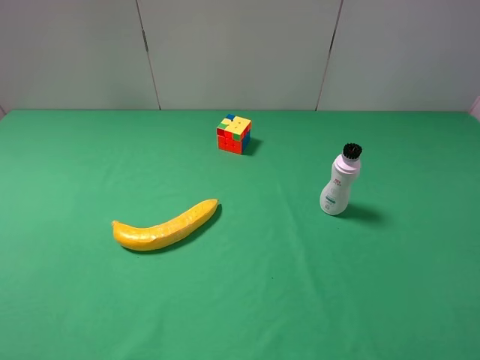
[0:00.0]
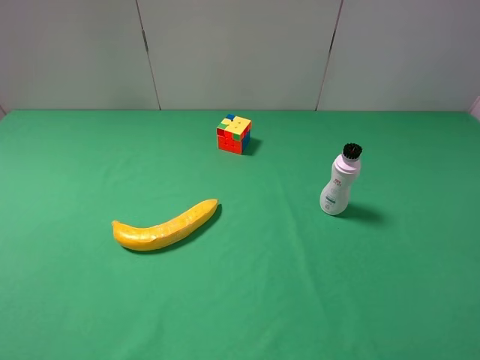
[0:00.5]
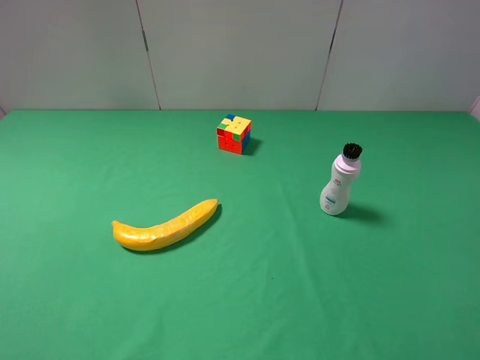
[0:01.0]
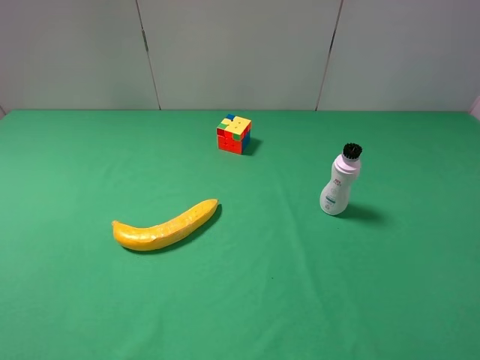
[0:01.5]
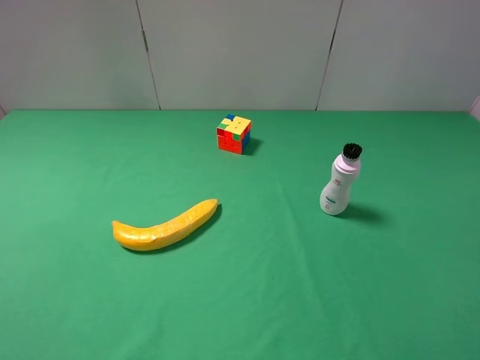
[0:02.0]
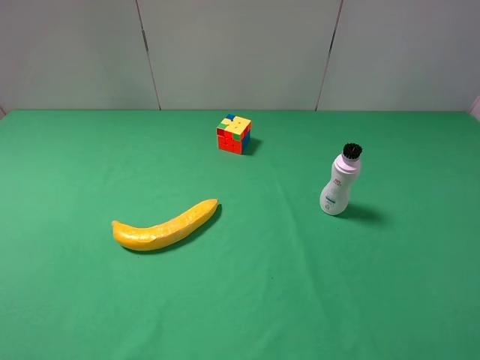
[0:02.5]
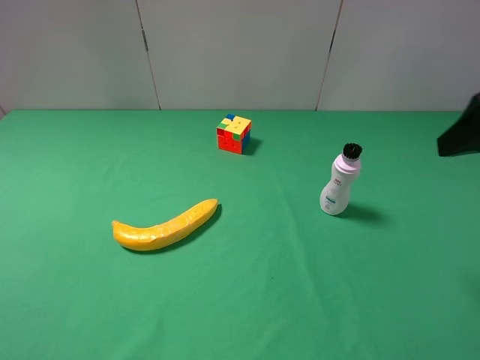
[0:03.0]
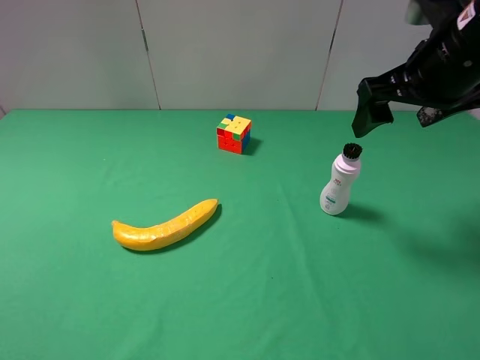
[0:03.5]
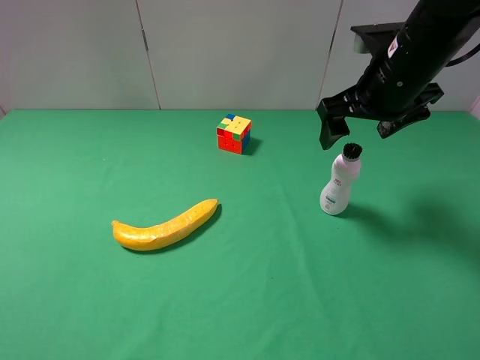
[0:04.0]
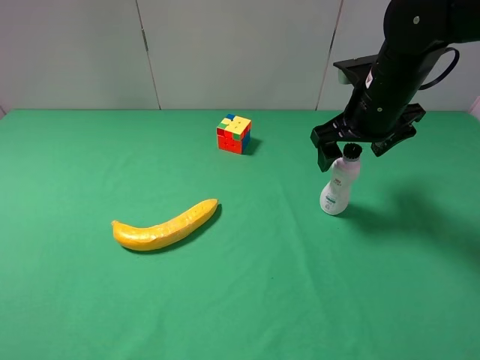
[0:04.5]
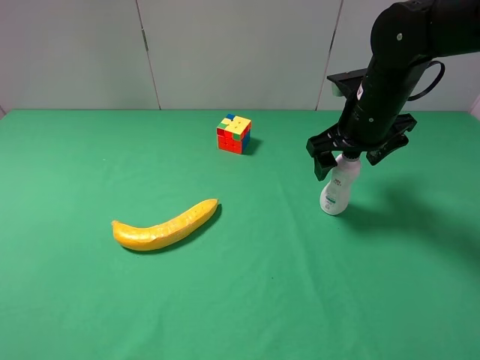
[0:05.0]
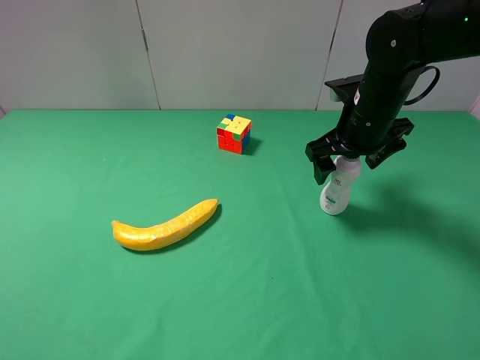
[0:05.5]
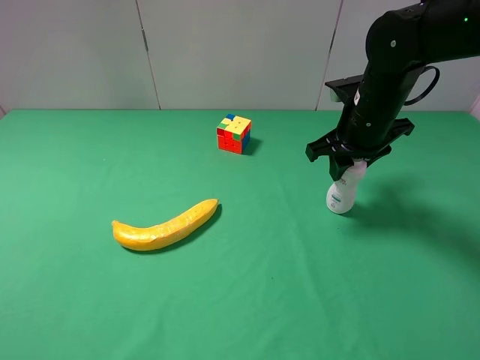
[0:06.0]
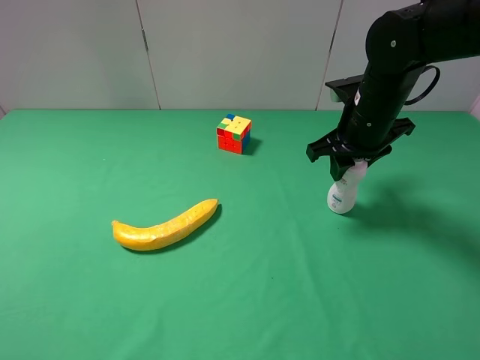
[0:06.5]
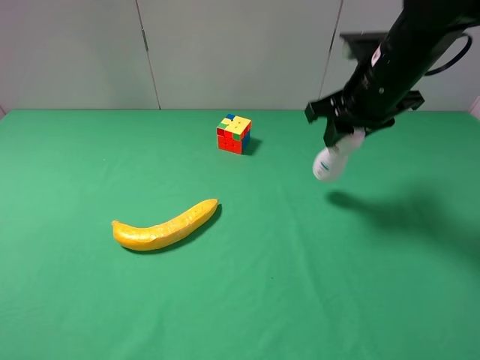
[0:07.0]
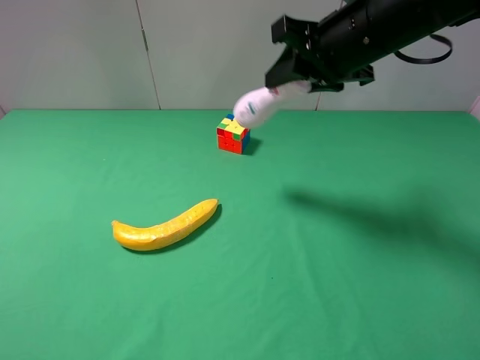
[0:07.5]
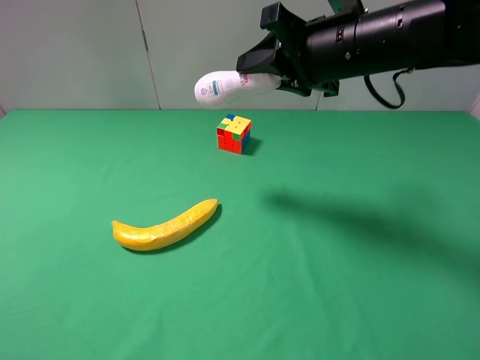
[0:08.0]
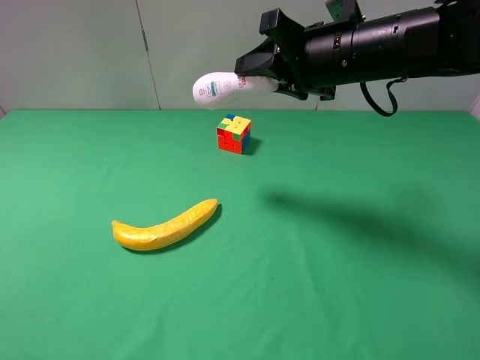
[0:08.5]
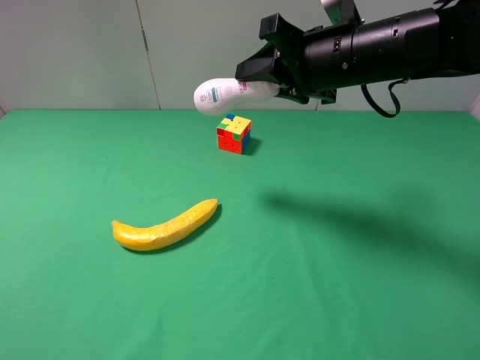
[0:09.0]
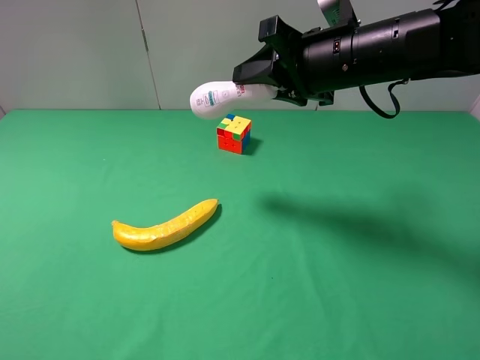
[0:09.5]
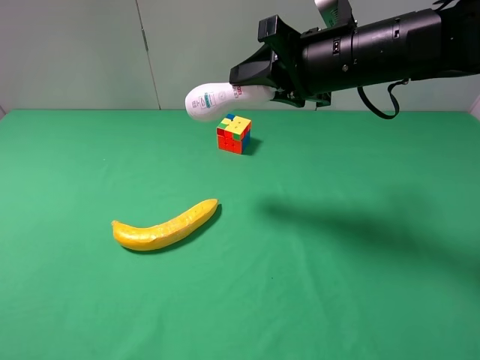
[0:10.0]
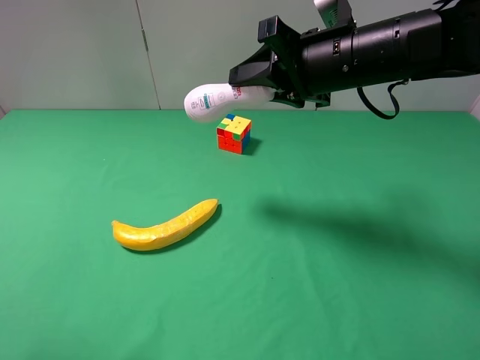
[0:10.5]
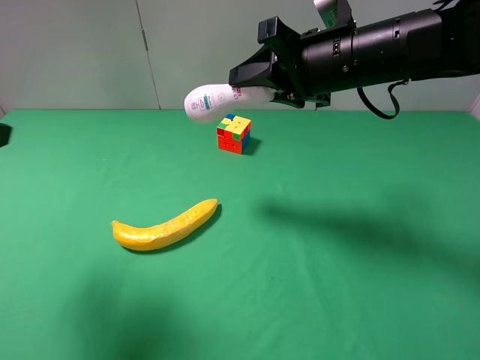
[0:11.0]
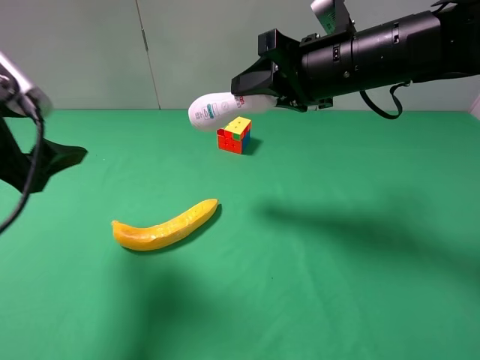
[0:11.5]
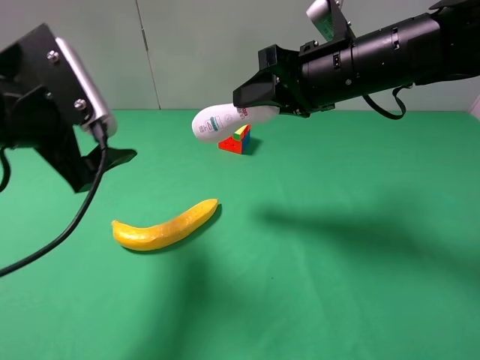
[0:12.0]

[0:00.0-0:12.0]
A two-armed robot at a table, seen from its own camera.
Task of the whole recording: use the right gripper to pick up the item and transfer it from the right gripper to the left gripper.
0:00.0 to 0:02.0: Neither gripper changes place.
0:02.0 to 0:04.0: The right gripper travels forward by roughly 30 cm.
0:04.0 to 0:06.0: The right gripper moves downward, some 5 cm, and closes up.
0:06.0 to 0:08.0: The right gripper shifts approximately 10 cm upward.
0:08.0 to 0:10.0: There are only small adjustments of the grippers.
0:10.0 to 0:12.0: The left gripper travels forward and to the right by some 25 cm.

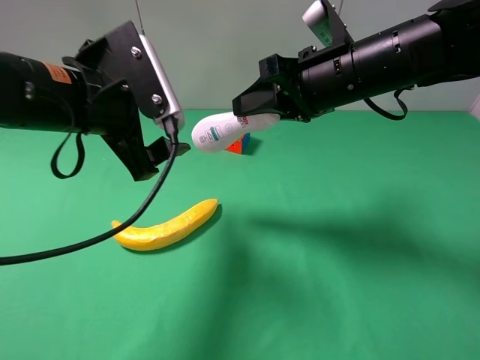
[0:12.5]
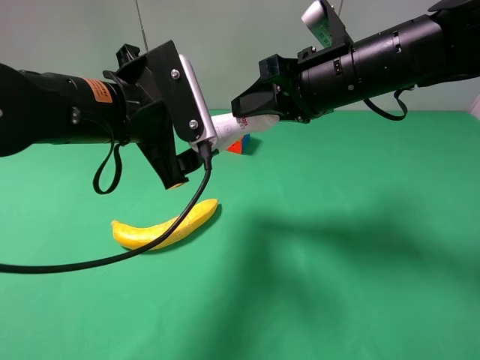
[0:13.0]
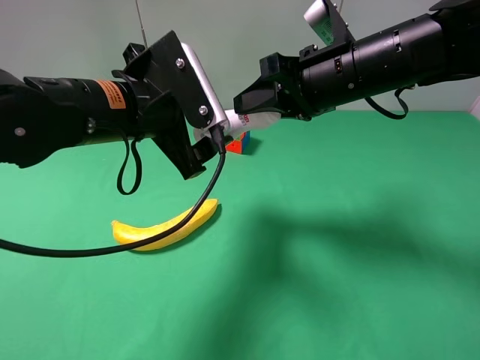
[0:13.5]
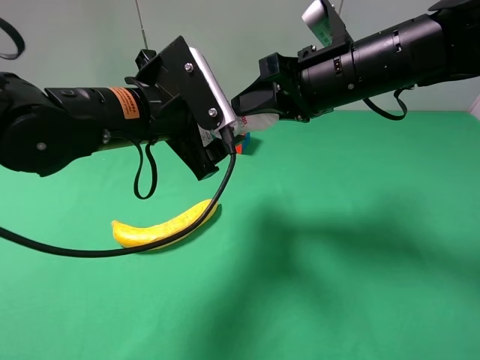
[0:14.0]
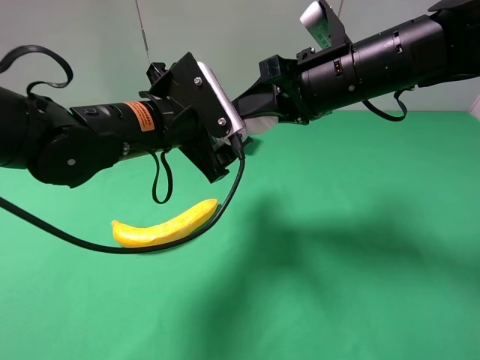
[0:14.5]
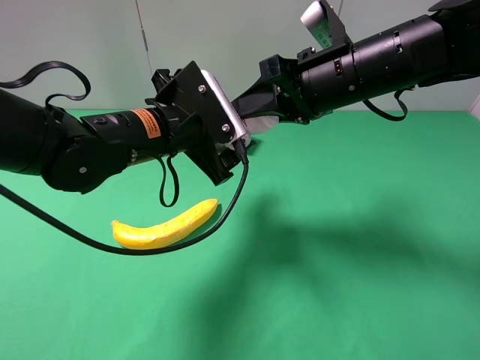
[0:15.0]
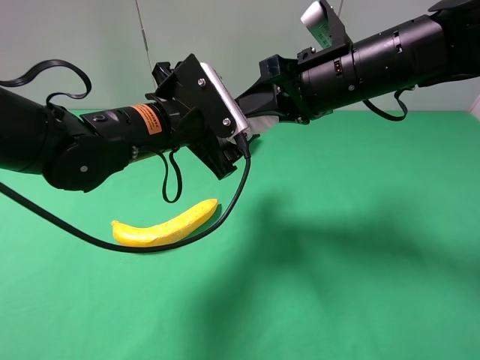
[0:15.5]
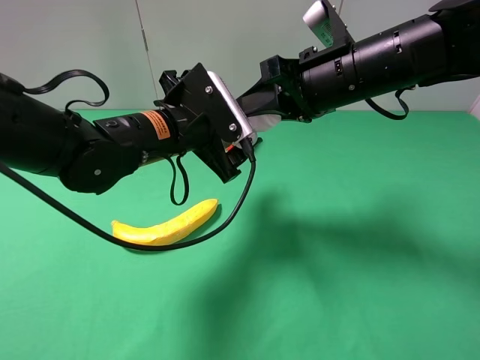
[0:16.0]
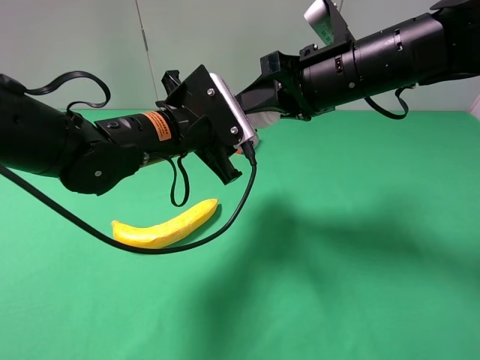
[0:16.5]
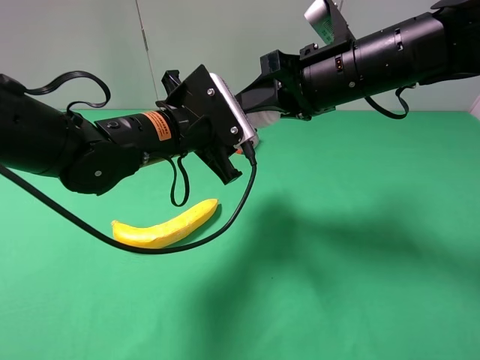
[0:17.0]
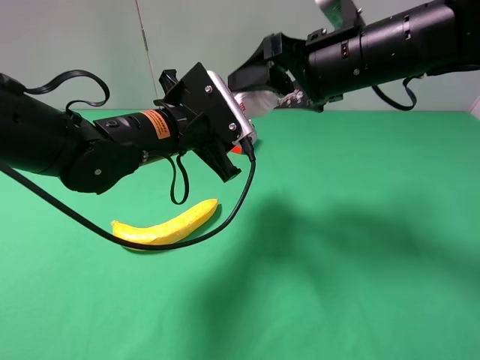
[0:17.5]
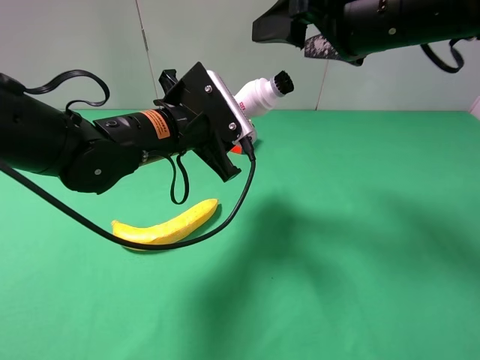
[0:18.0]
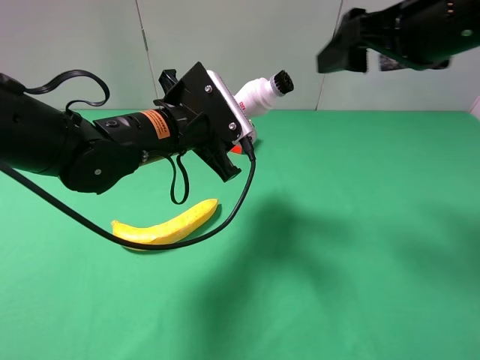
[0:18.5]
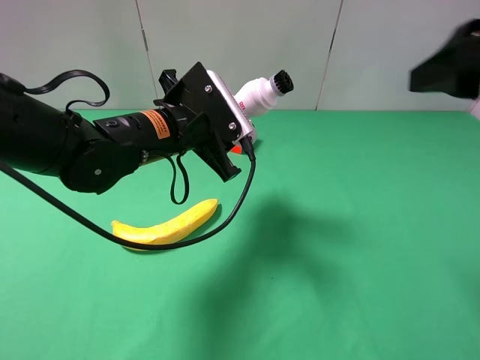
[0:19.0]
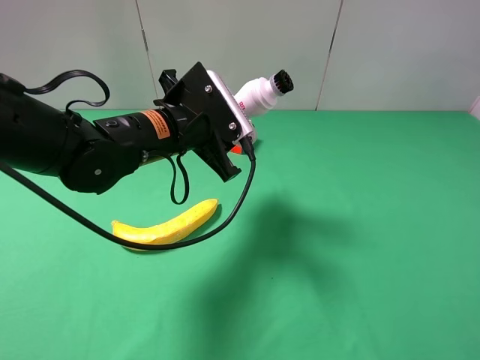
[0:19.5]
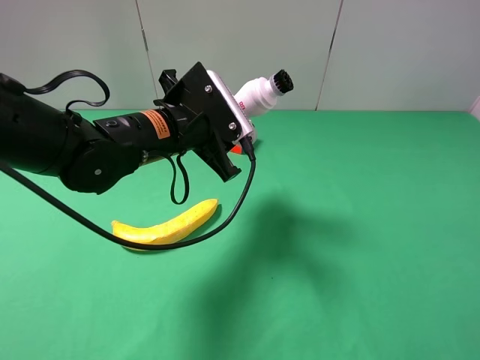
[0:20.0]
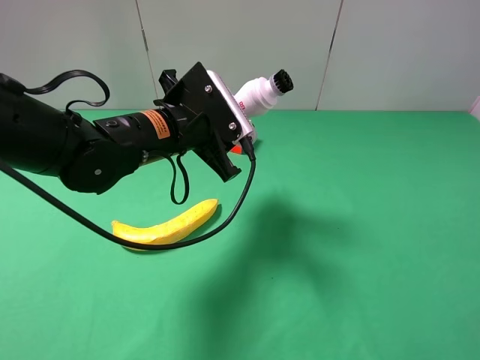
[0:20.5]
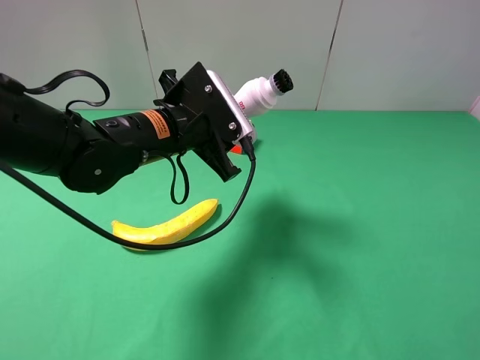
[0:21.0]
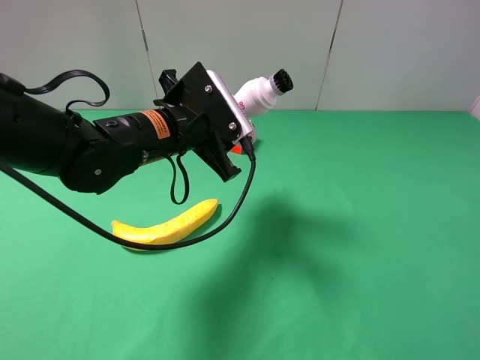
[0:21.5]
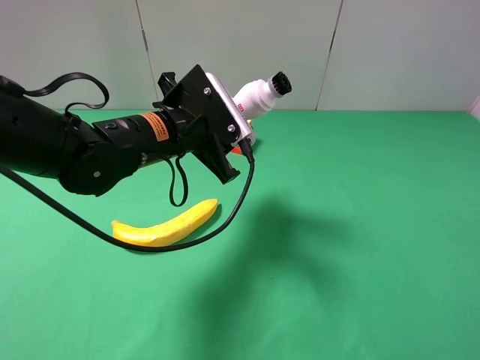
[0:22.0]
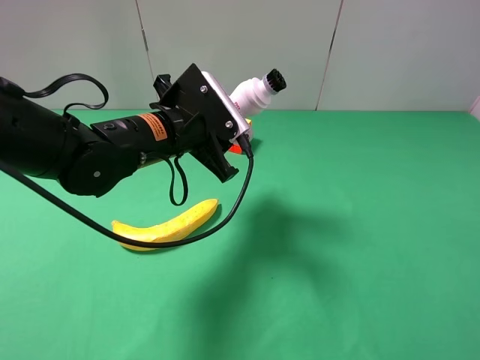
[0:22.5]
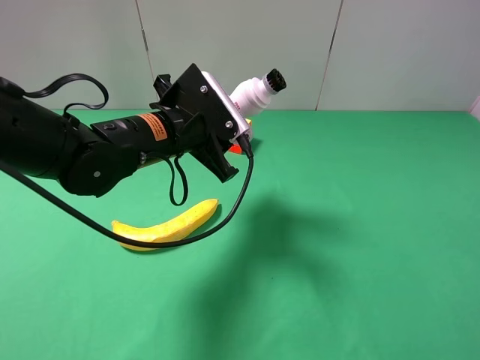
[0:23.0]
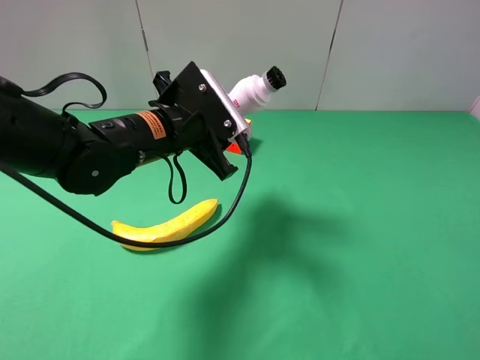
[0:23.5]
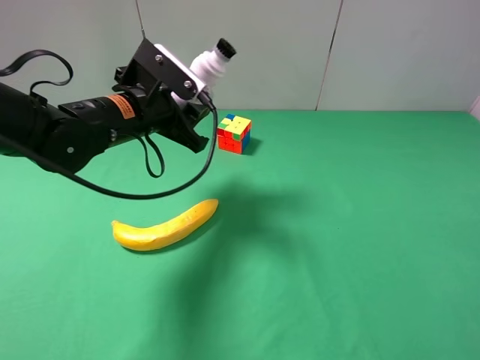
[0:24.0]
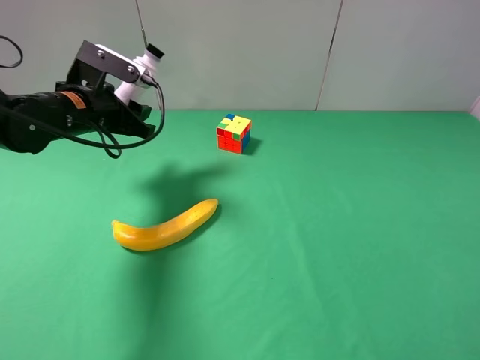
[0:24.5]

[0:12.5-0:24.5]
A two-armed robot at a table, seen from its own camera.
Task of the whole recording: use the right gripper to pick up the item and transfer it from the right gripper to the left gripper.
Step, 0:12.5 to 0:17.5: Pass the shampoo to the left gripper.
0:12.5 to 0:14.5: The left gripper travels to the right by about 5 cm.
0:14.5 to 0:16.5: The left gripper closes up.
0:16.5 to 0:18.5: The right gripper shifts some 10 cm upward and to the right, and opens its fingers.
0:18.5 to 0:20.5: The right gripper travels backward and to the right by approximately 25 cm.
0:22.5 to 0:24.5: The left gripper is displaced to the left and forward by some 15 cm.

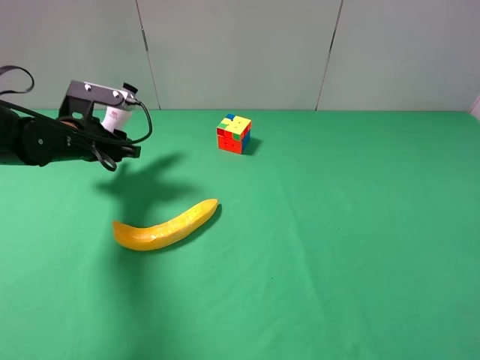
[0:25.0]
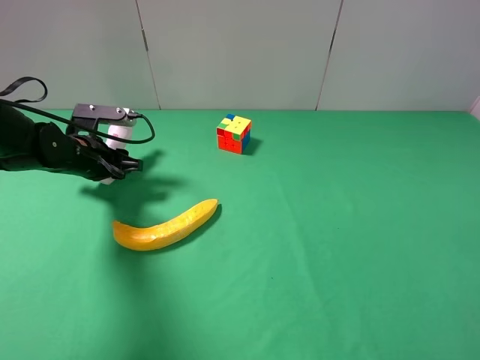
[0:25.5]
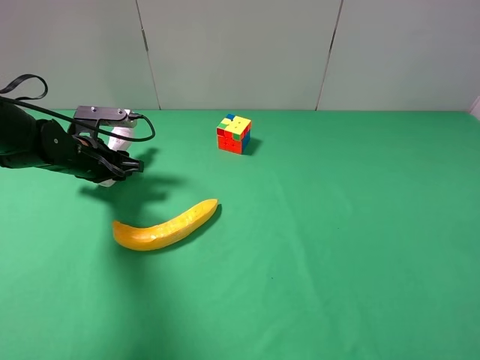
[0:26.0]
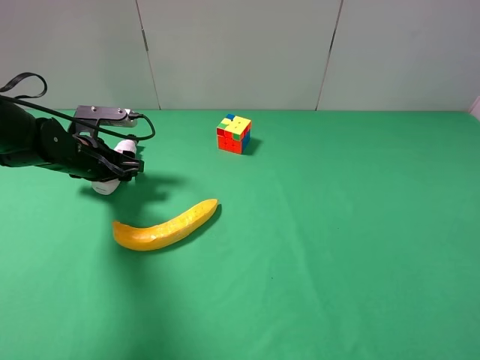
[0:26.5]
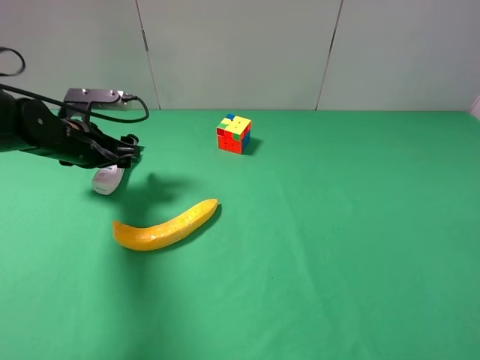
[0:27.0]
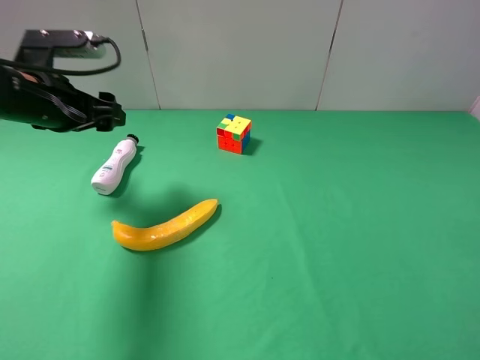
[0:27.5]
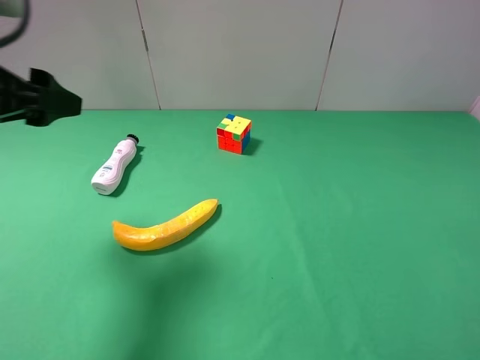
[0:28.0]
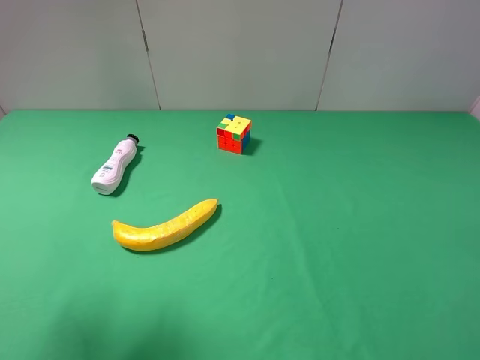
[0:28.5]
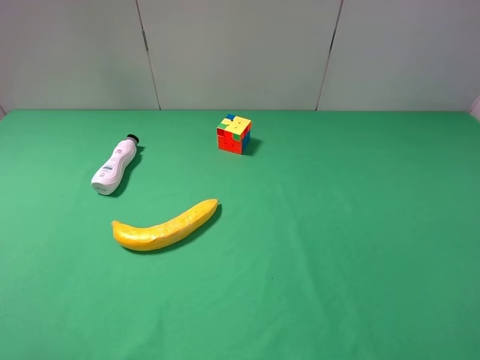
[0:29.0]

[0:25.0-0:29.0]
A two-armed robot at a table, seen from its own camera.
Task of the whole recording: use the right gripper to pick up the item and transfer it from the right gripper to the left gripper.
0:25.0 to 0:27.0: The left gripper opens its fingers.
0:27.0 to 0:29.0: The left gripper shifts about 35 cm backward and upward.
